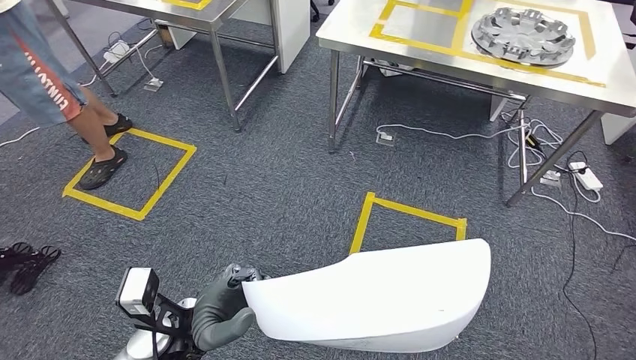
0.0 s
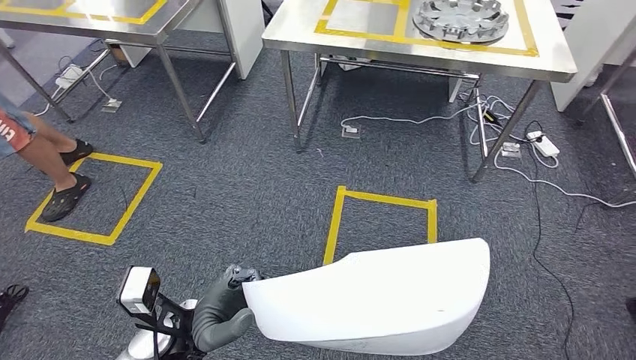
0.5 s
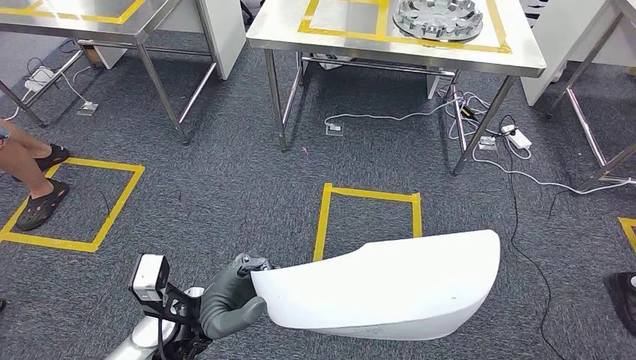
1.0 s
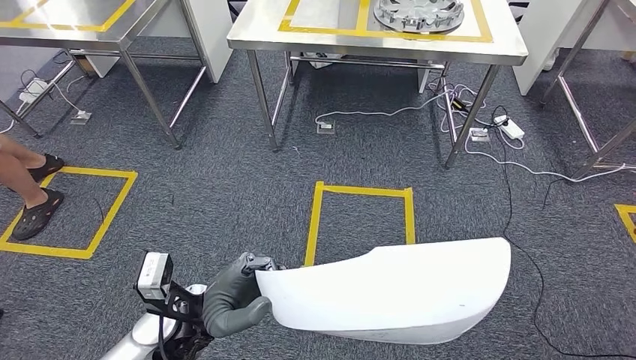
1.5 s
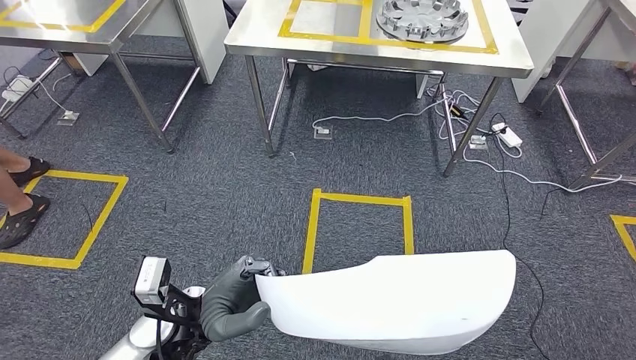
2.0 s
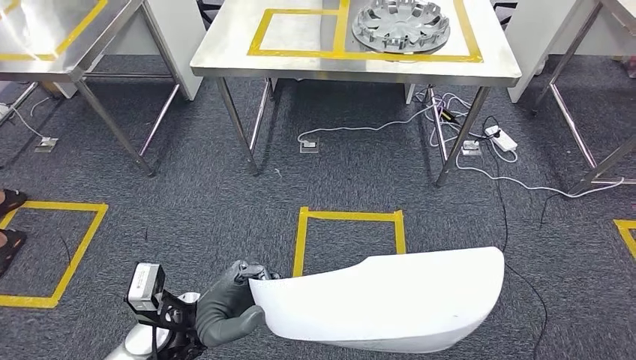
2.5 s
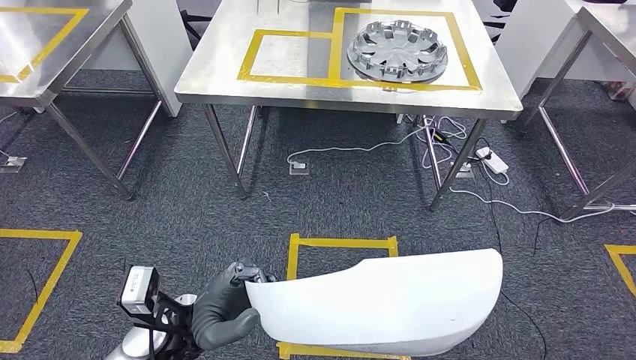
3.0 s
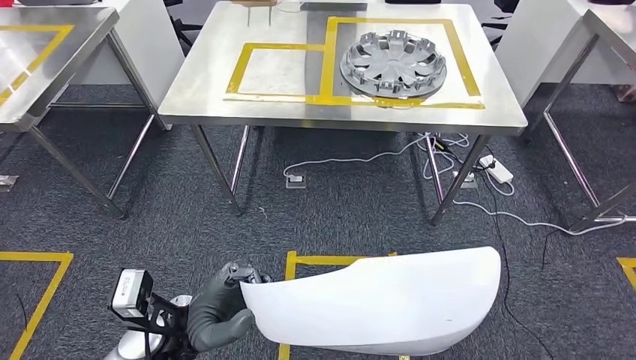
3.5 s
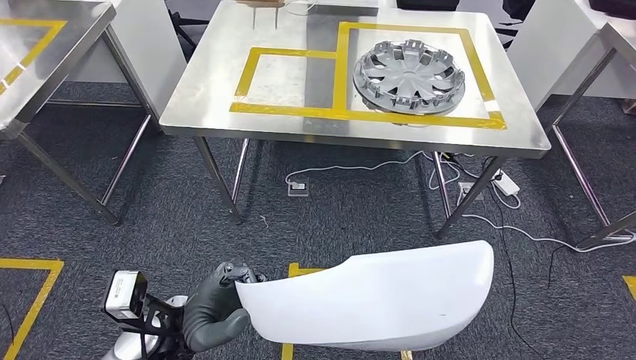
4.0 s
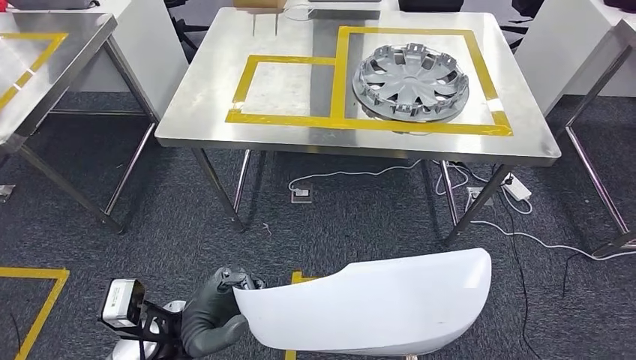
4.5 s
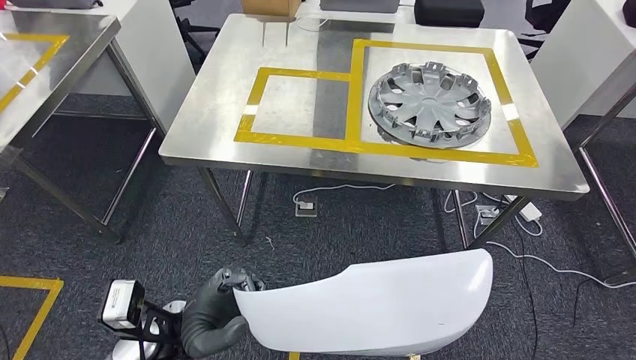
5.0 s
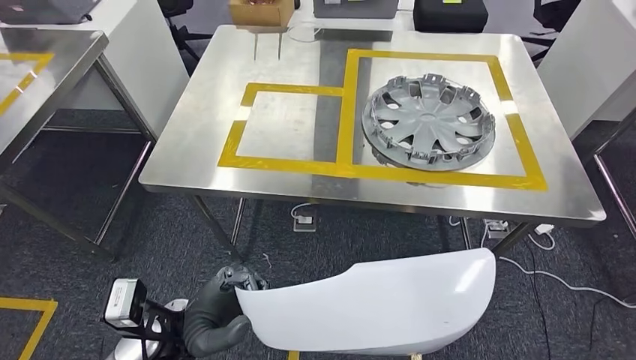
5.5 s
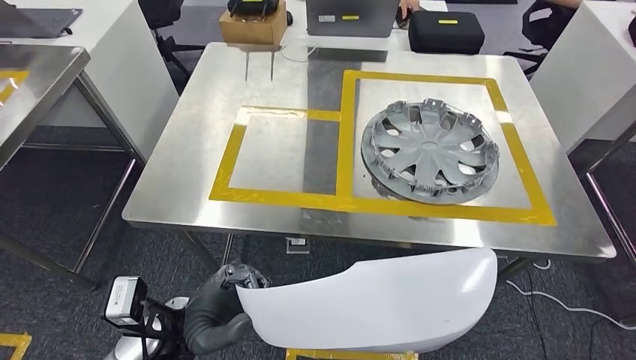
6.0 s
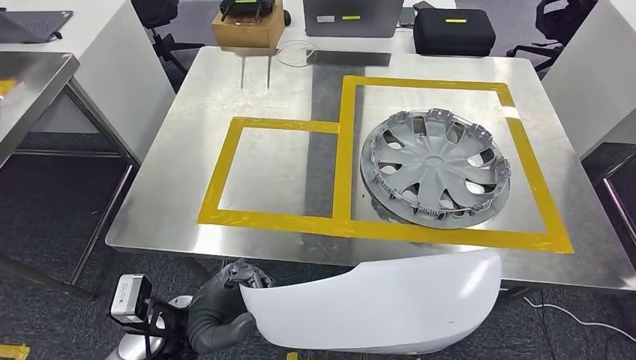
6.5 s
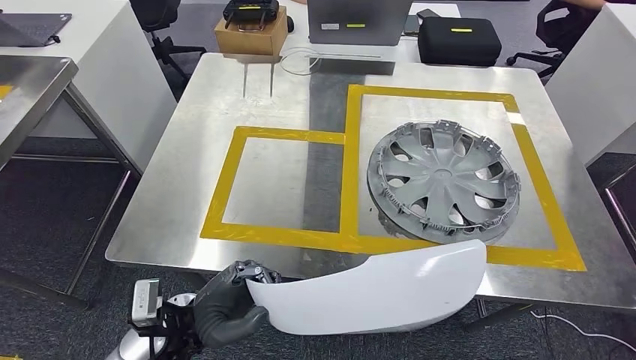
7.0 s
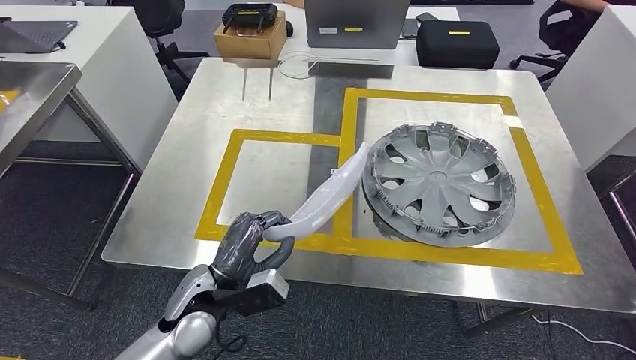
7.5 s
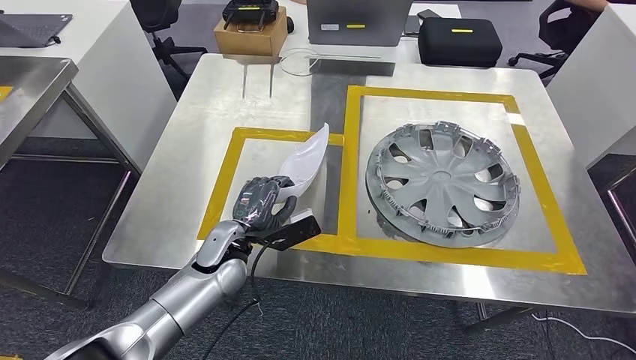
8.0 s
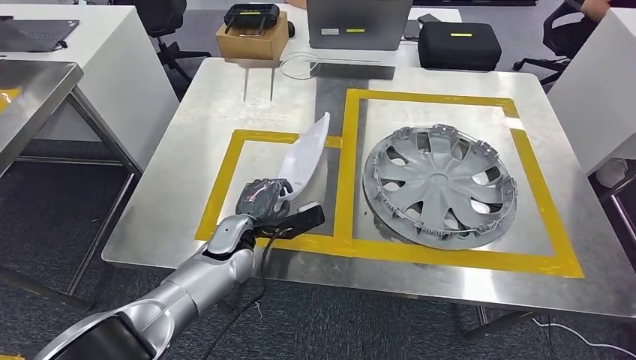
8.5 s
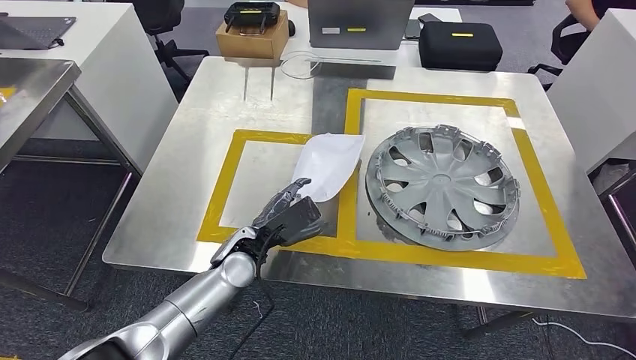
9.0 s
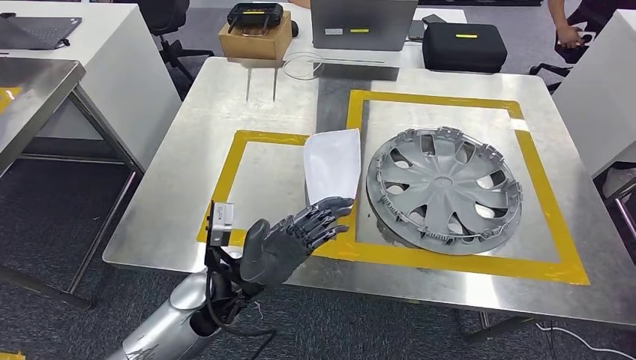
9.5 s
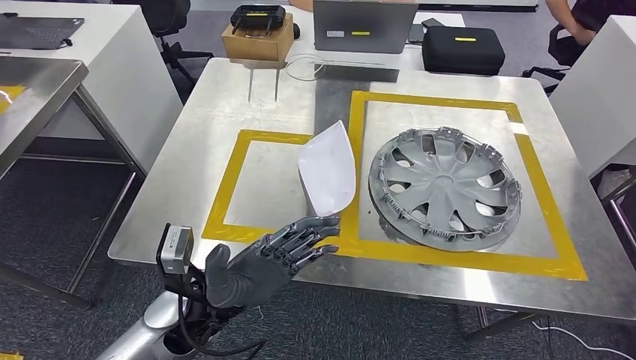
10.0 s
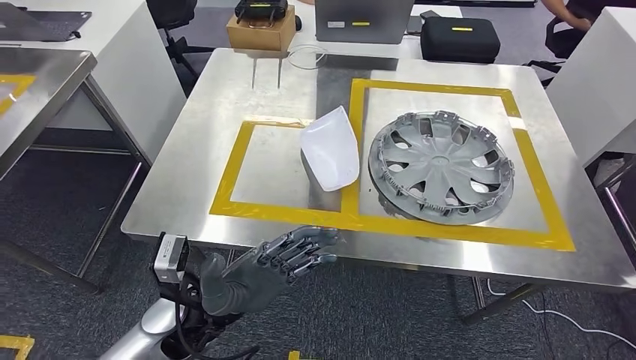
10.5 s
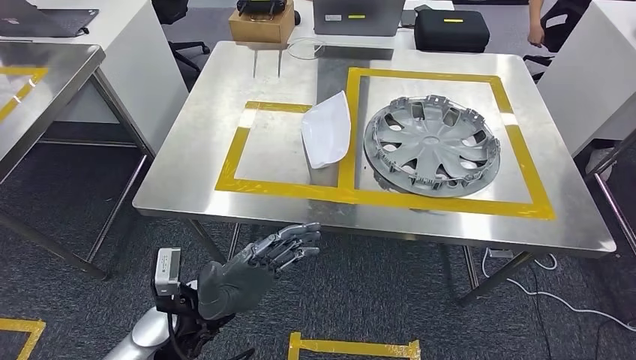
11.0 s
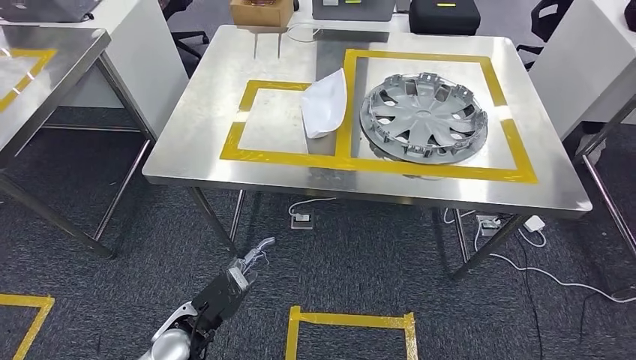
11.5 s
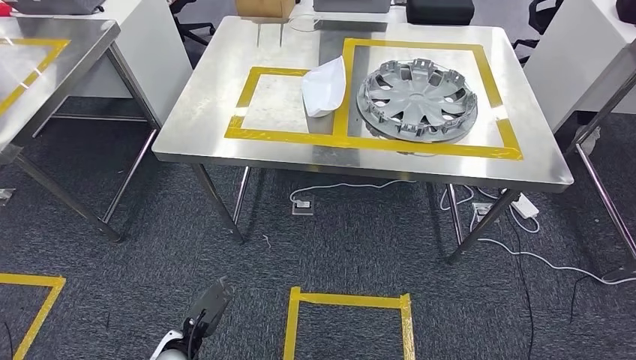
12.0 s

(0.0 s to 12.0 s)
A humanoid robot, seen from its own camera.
Step, 0.0 s - 7.0 s: Move the small component to the workbench.
Step, 7.5 s - 10.5 s: Insert the small component into the corresponding slot on the workbench.

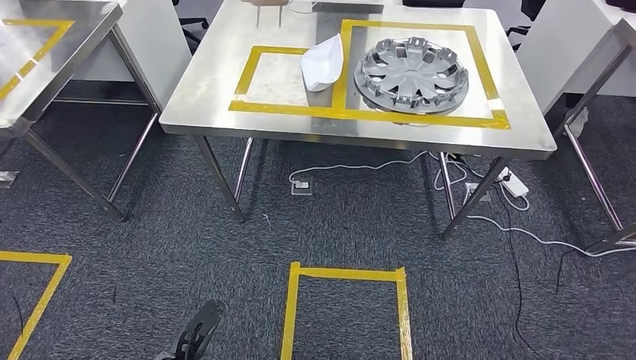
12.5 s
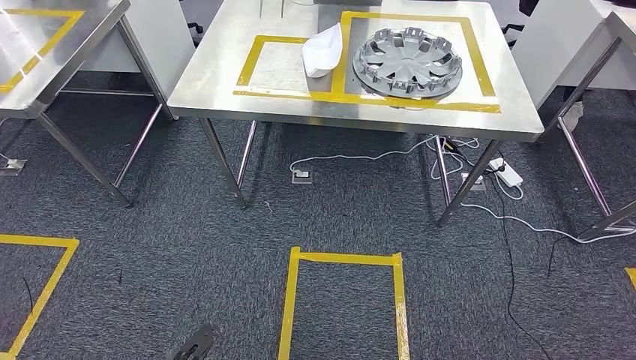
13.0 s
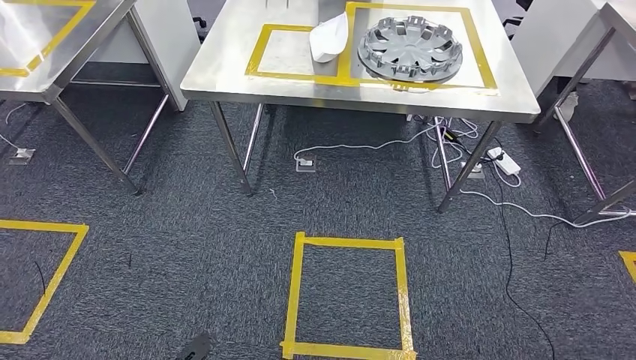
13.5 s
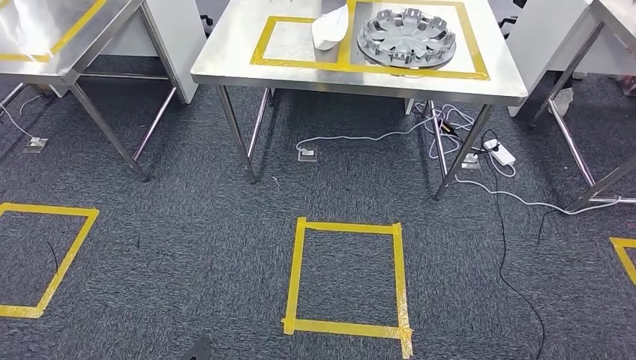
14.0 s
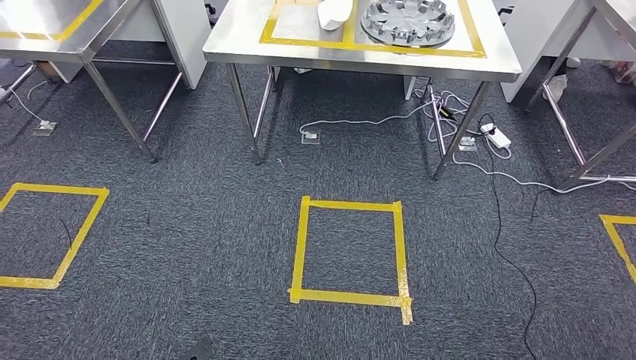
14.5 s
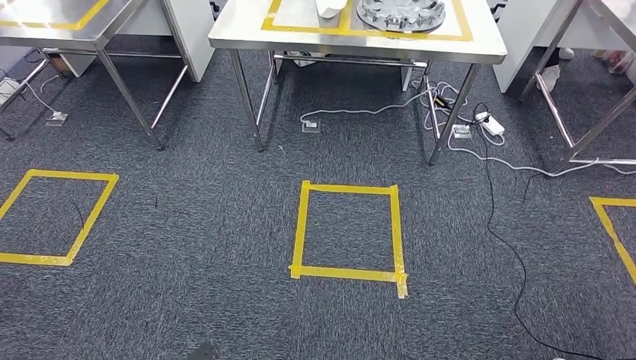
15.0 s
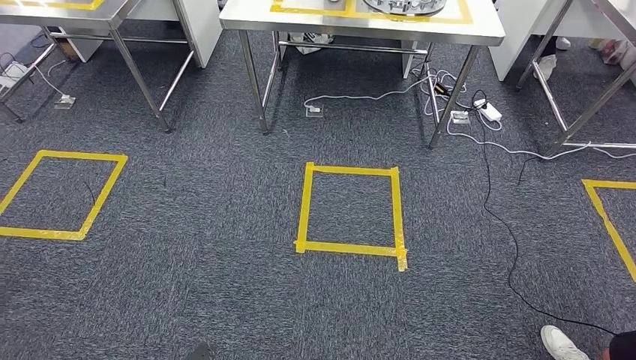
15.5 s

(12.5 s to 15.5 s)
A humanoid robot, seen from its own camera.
Step, 12.5 s - 15.5 s: Return to the initial position at the workbench.
